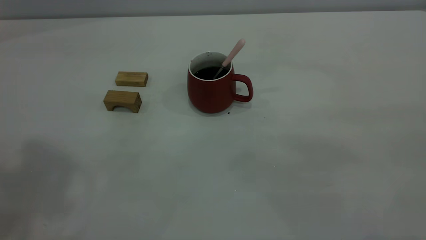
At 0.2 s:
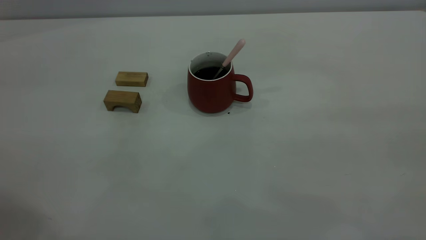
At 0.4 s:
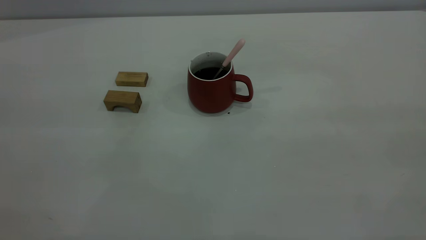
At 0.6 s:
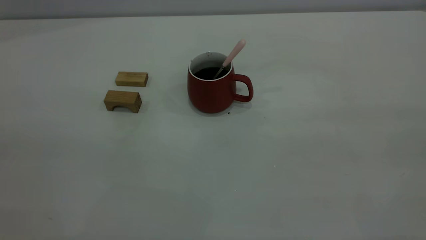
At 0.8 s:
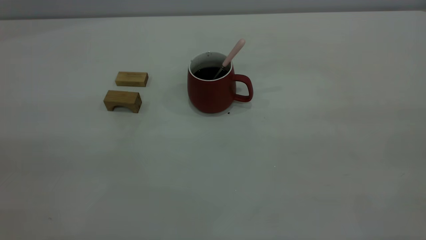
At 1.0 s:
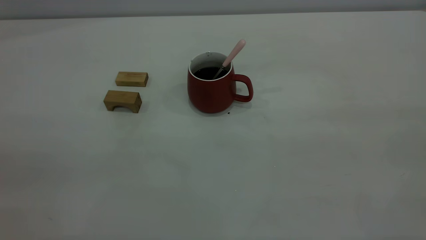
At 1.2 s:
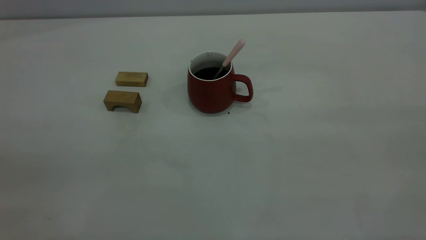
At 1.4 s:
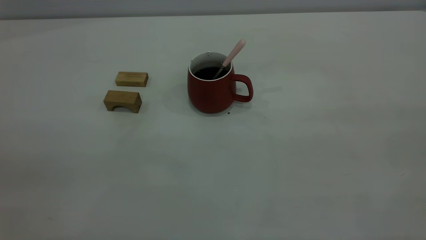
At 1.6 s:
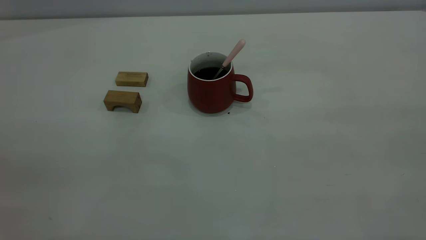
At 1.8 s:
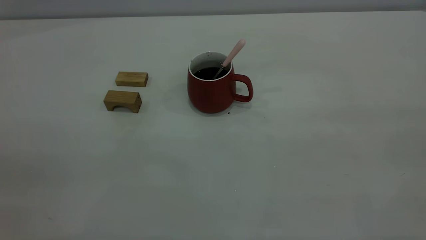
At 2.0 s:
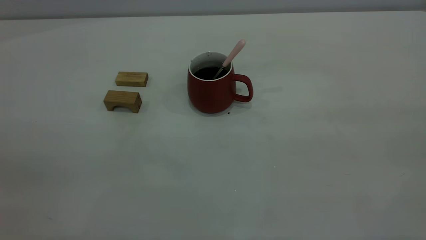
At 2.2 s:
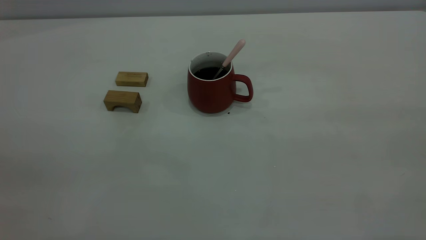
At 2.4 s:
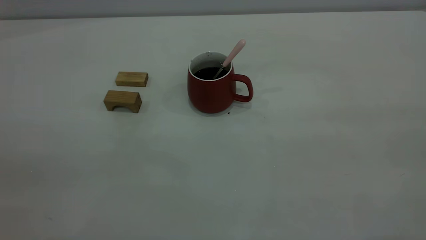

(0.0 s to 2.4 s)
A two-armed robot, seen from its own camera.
1.2 s - 2.4 s: Neither gripper changes place.
